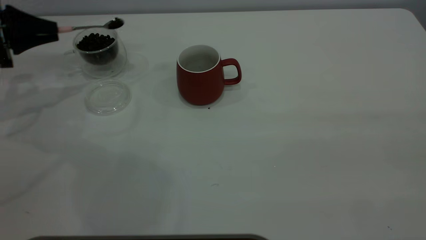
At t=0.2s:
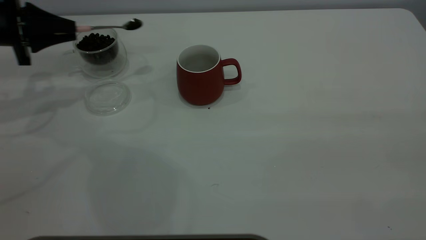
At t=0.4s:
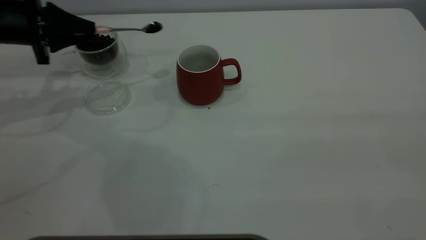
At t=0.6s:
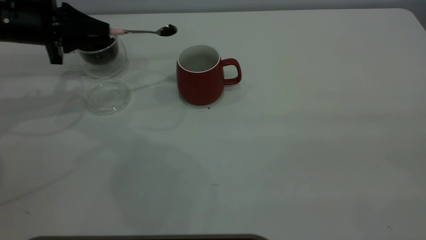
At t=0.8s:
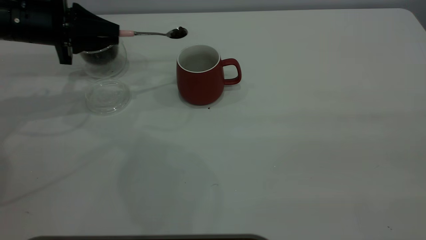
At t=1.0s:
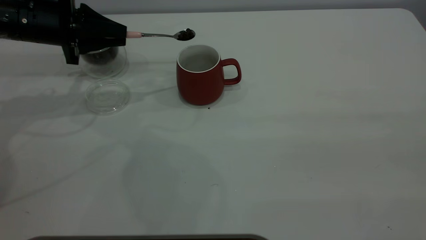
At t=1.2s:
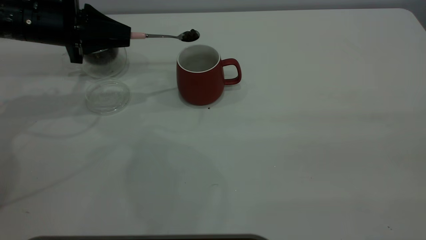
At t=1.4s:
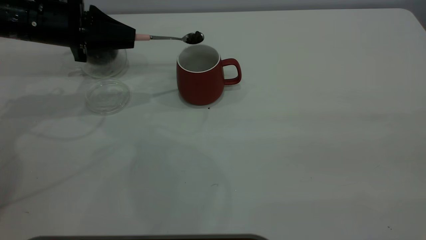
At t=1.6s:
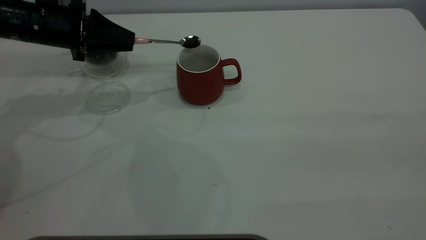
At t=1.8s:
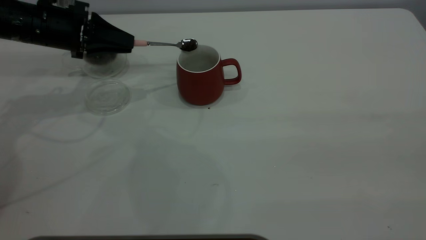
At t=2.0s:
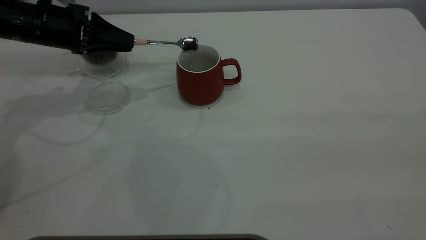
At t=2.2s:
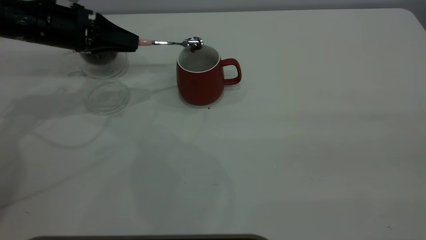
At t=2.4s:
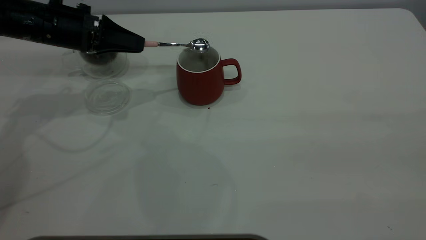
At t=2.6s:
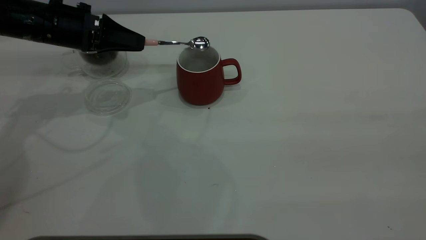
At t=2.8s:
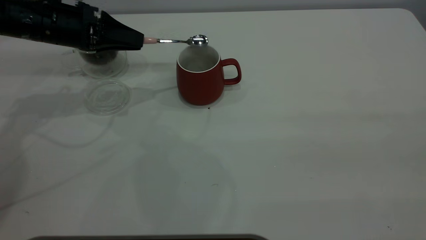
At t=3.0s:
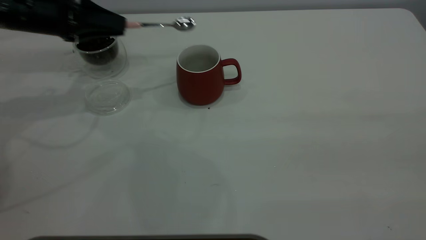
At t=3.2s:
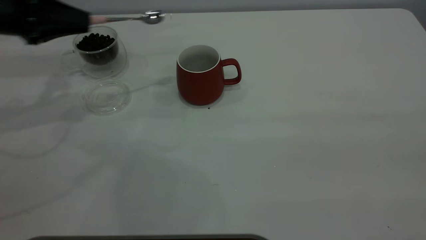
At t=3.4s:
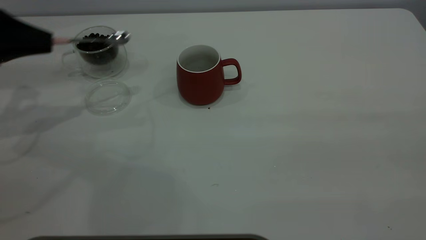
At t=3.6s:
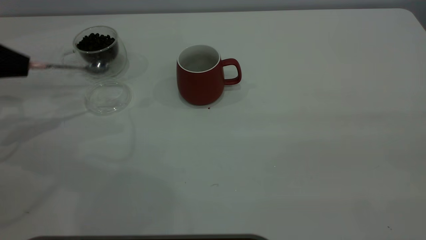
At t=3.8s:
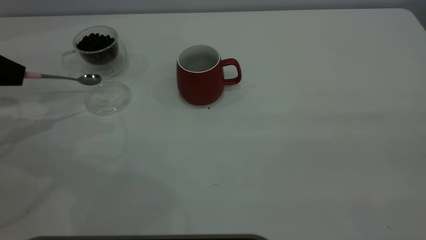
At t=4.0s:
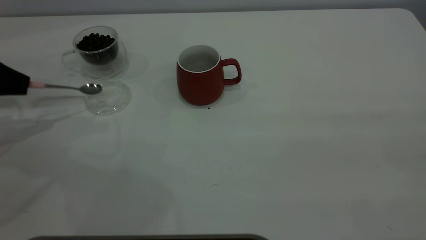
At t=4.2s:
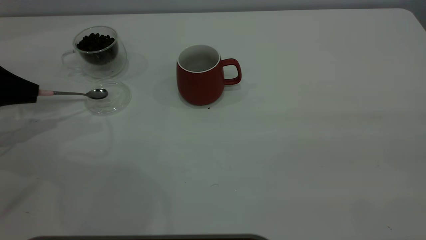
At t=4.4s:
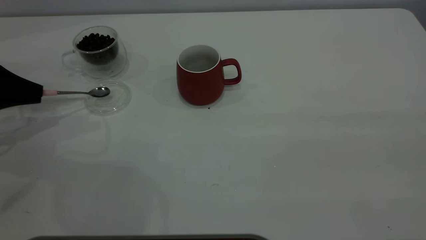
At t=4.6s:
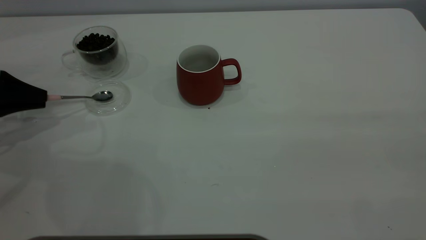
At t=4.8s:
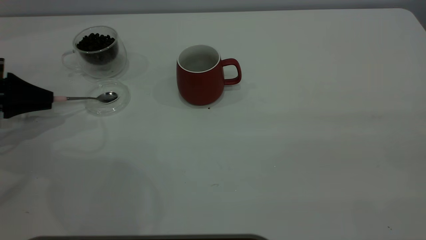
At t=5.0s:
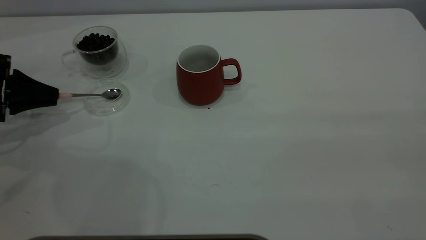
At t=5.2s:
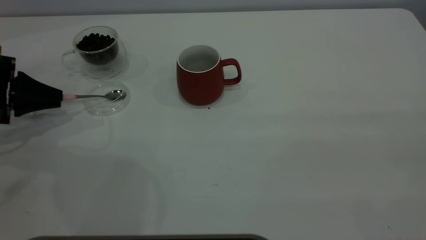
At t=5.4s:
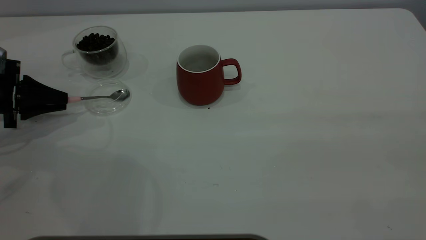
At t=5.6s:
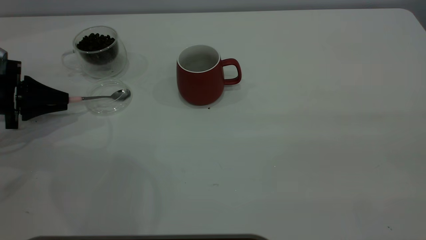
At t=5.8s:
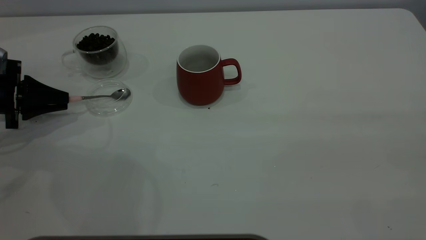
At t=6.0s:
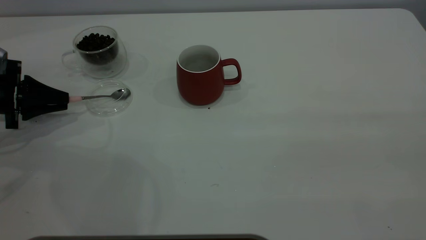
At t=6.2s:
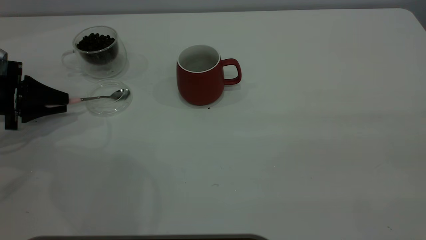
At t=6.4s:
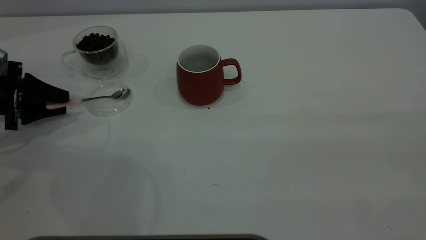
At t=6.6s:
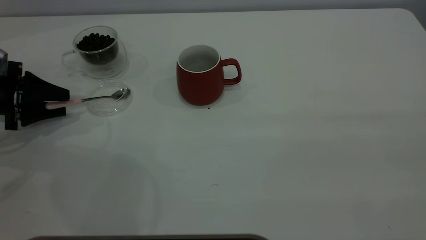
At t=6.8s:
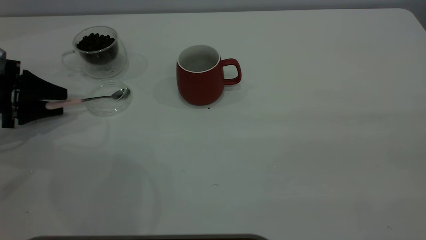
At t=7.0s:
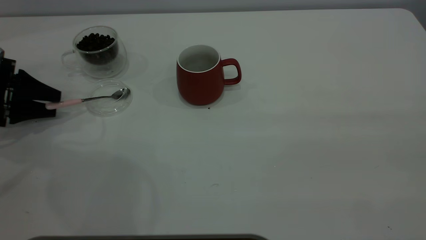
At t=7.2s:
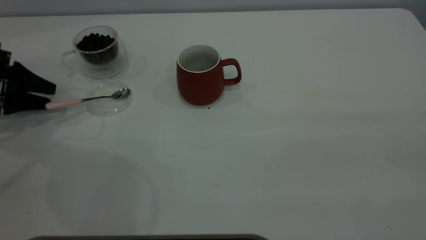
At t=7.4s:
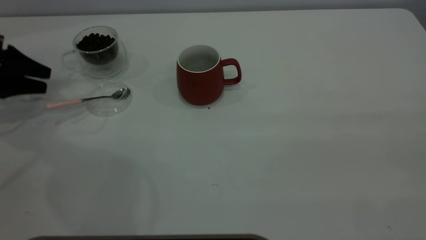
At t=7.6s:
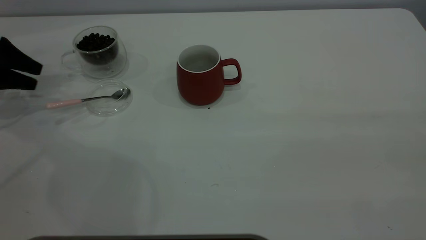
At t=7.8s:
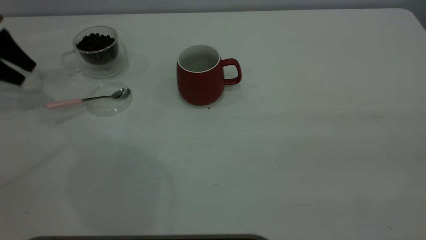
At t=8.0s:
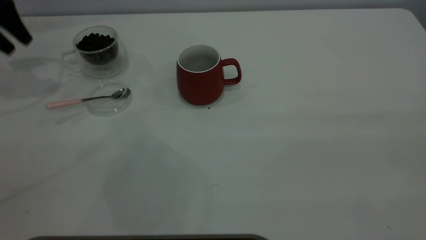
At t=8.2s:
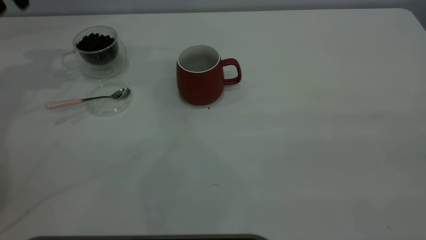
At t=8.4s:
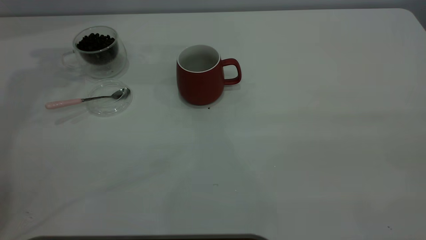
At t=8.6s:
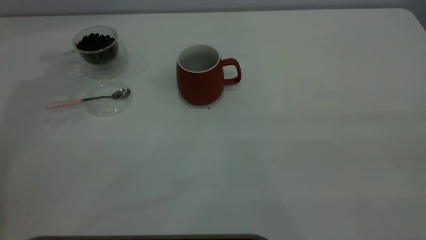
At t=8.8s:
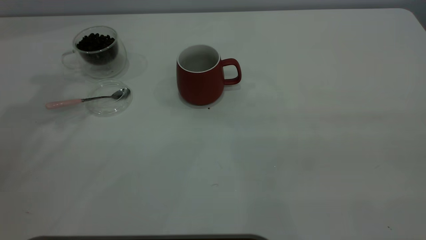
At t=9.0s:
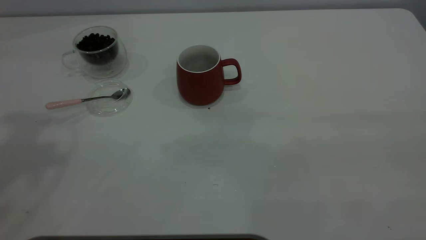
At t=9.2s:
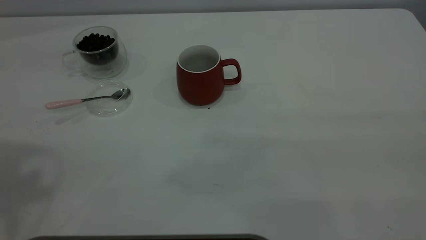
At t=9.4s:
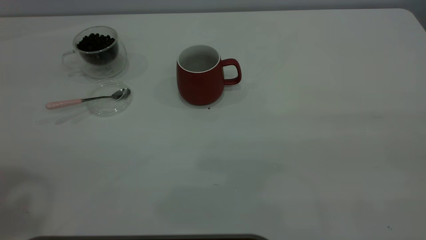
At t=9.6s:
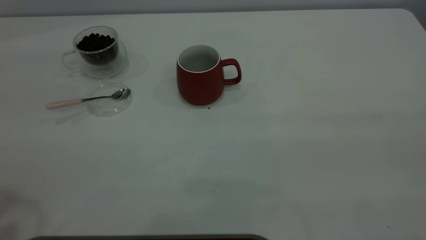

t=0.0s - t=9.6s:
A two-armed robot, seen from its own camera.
Task of the whole recording: the right gripper place the red cup in the center of the table, the left gripper take the pink spoon from the cup lid and scoop out the coffee beans from the coffee cup and put them into the red cup, the left gripper put the spoon back into the cup lid.
Step, t=0.0s - t=2.8s: Scoop a spoonful of beans into the cup.
Step, t=3.2s - t=7.8s: Place the spoon back in its original place.
t=0.0s - t=1.6s: The left gripper is displaced to the right by some 10 cm.
t=1.6s - t=3.2s: The left gripper moves to the left, about 5 cm.
t=3.2s - t=4.8s: The left gripper goes about 10 cm downward and to the left.
t=4.8s - t=6.4s: The left gripper opens up.
t=6.4s - t=8.0s: The left gripper heads upward and forward, covering approximately 20 cm.
t=8.0s - t=9.6s: The left gripper is displaced backward and upward by some 40 cm.

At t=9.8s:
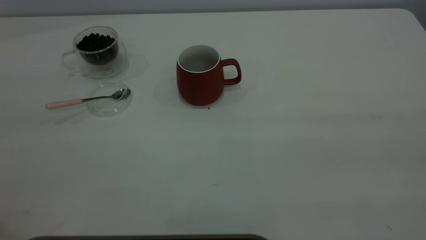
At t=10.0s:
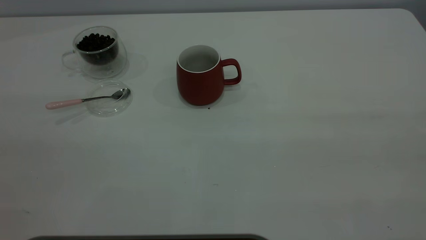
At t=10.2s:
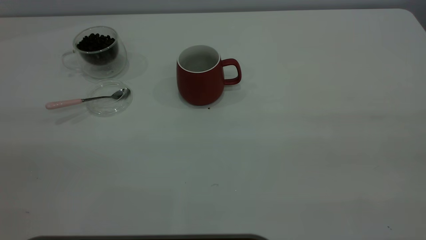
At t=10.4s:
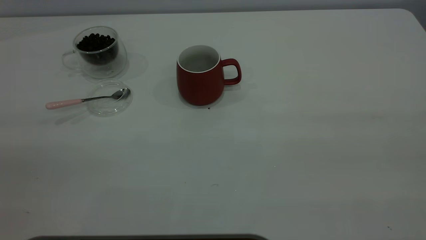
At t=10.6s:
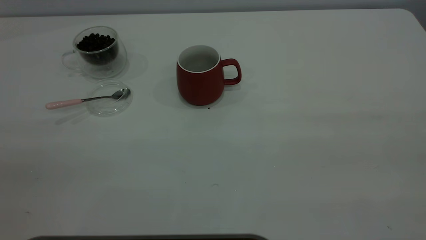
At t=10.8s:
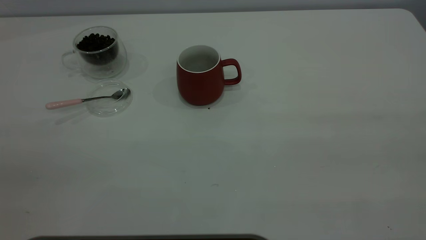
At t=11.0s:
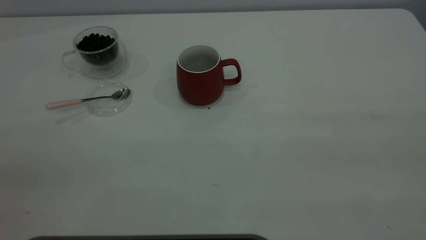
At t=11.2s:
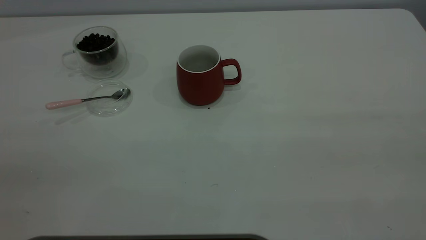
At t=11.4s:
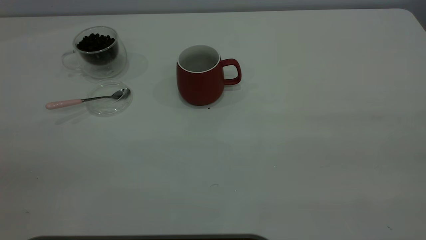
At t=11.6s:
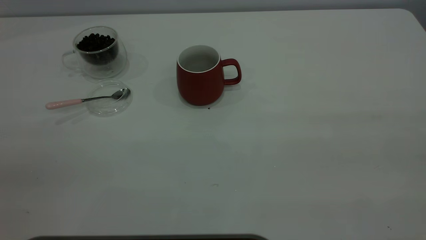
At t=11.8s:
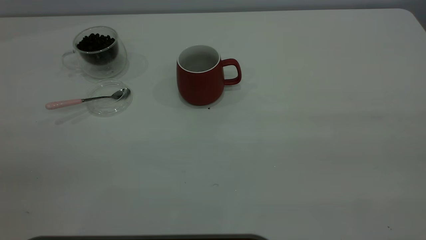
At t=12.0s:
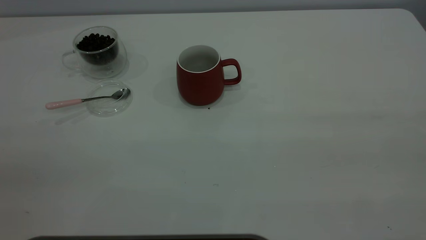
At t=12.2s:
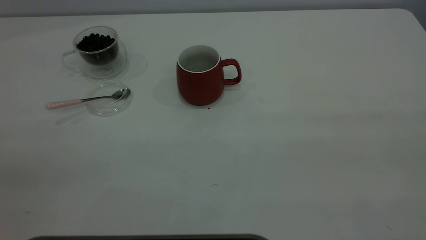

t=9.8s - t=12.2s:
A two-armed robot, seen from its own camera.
Task of the whole recording: the right gripper place the red cup in the center of the table, the left gripper take the pink spoon from the cup lid and scoop out the coffee beans from the coffee cup and put them into the red cup, the left gripper put the spoon back into the cup lid.
t=11.0s - t=12.2s: Neither gripper changes place.

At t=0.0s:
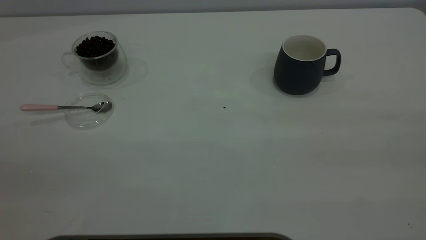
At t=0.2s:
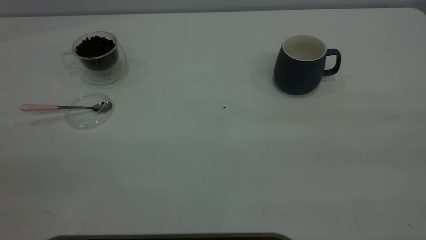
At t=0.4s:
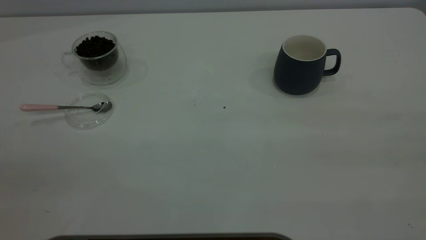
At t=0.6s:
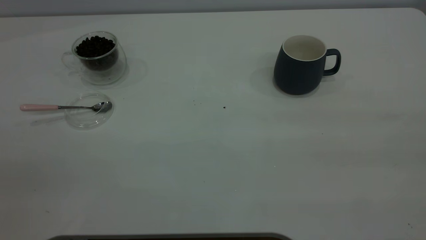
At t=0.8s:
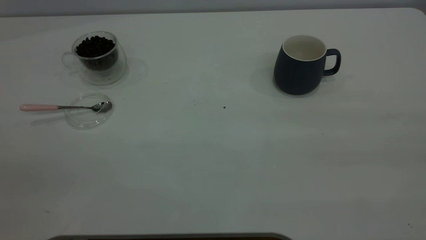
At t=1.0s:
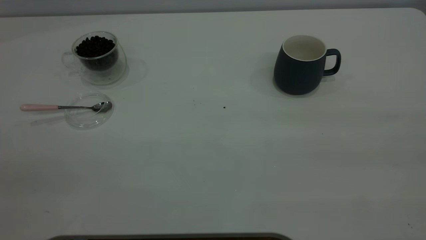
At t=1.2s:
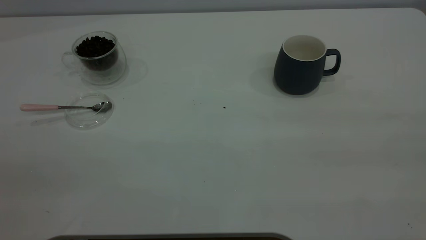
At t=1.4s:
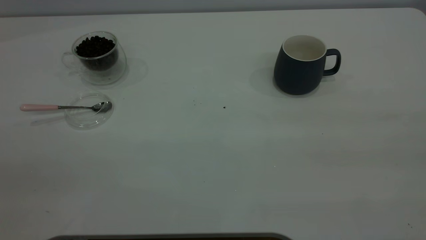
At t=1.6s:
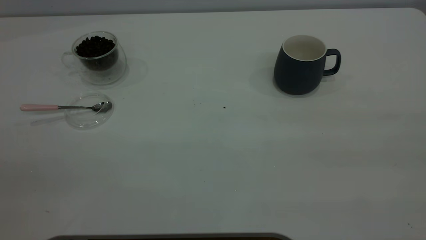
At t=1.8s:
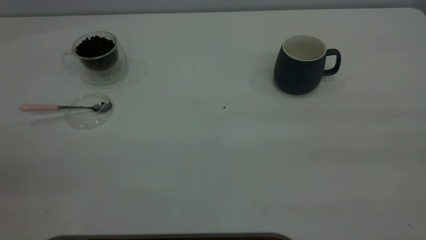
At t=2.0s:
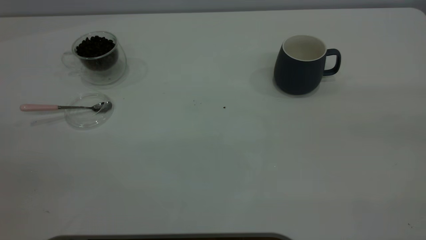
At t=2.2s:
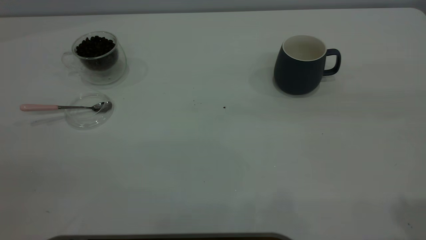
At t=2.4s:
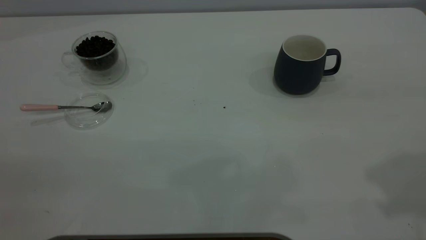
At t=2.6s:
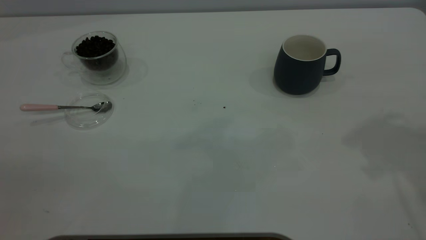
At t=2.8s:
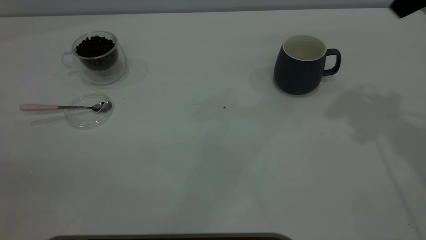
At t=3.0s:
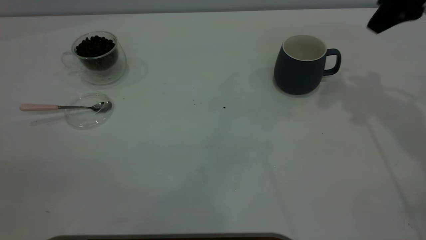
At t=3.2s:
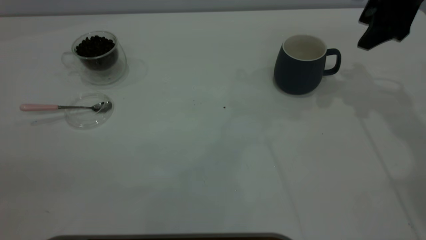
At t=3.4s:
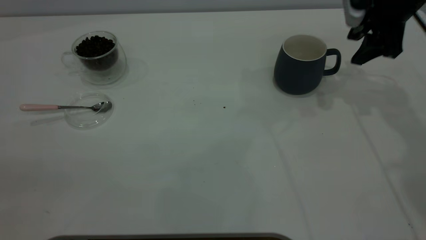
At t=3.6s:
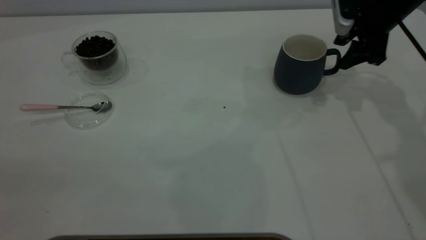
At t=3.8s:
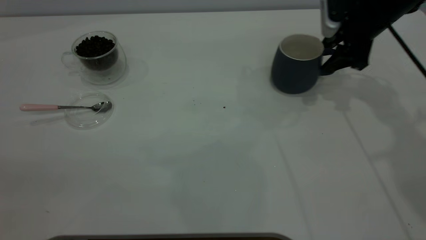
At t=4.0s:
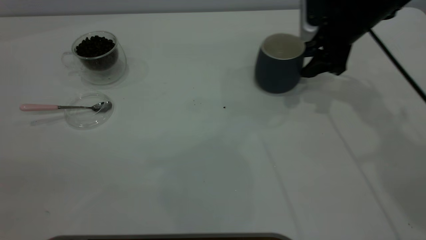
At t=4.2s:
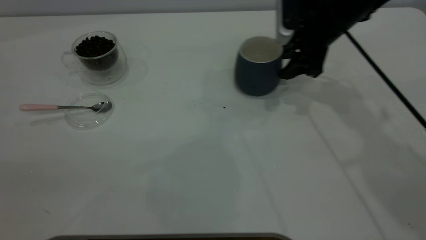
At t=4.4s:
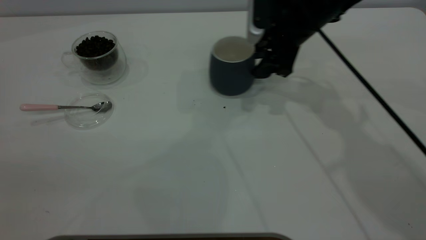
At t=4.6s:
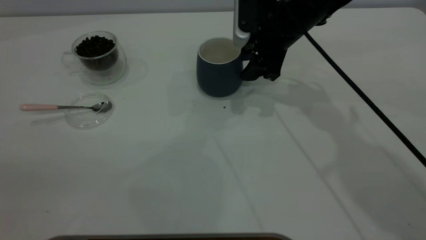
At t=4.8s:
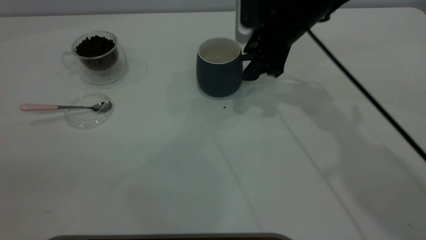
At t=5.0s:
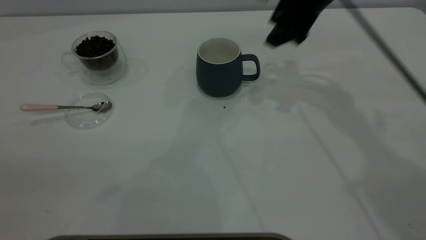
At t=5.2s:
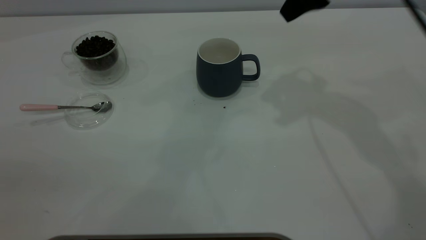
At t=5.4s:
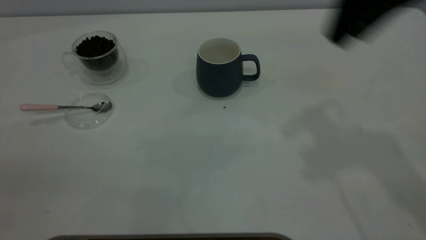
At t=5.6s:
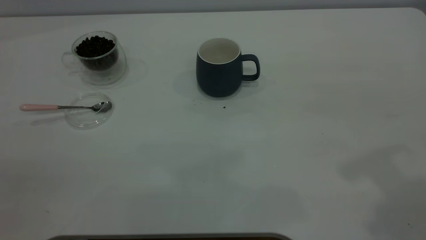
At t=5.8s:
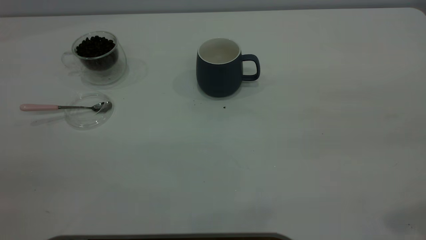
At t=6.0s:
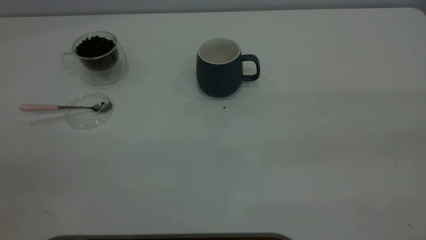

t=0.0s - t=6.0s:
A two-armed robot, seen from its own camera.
Task of the whole recording: the right gripper place the grey cup in the center of the table, the left gripper take the pink spoon from the cup lid and scoop out the coffee beans from the coffee cup and put them into the grey cup, the left gripper put the spoon back into the cup lid.
Step, t=0.0s - t=5.0s: Move the cup to the center of view.
t=0.0s - t=1.6s: Neither gripper changes place.
t=1.6s - t=3.0s: The right gripper heads forward, covering some 40 cm, and opens.
t=3.0s - t=4.4s: The right gripper travels to the left and downward by roughly 20 cm.
t=4.4s - t=6.0s: The right gripper moves backward, upward and to the right, about 50 cm, and closes.
